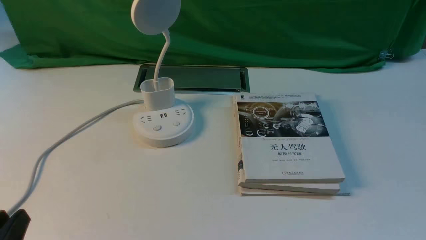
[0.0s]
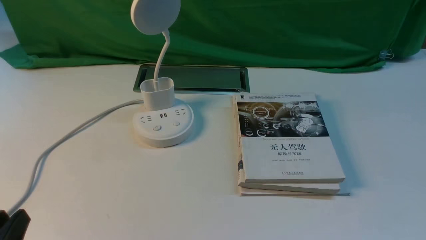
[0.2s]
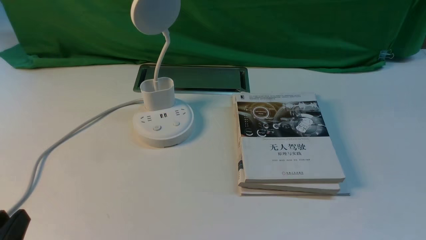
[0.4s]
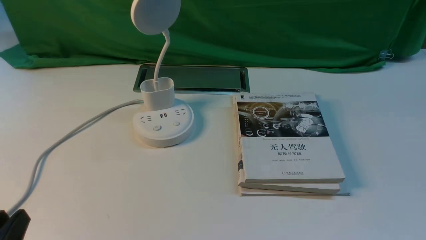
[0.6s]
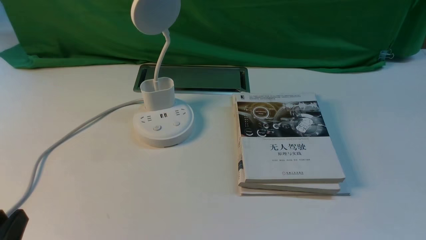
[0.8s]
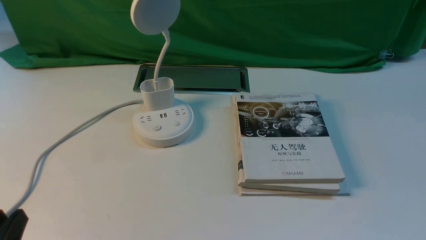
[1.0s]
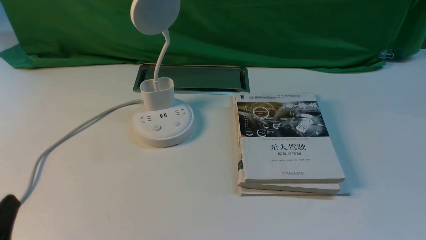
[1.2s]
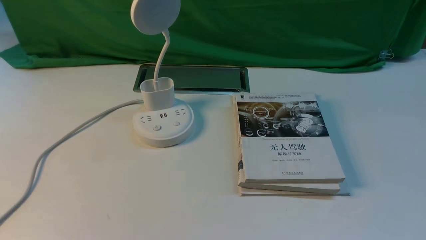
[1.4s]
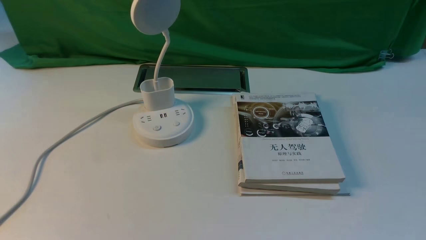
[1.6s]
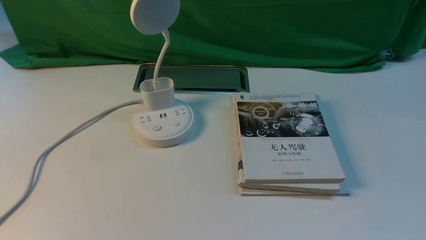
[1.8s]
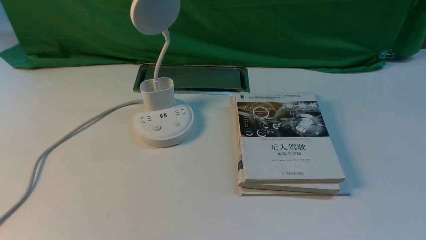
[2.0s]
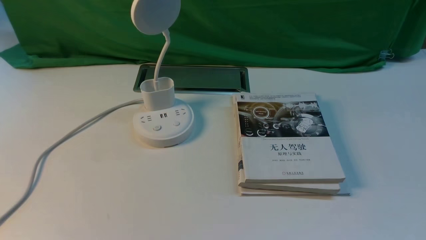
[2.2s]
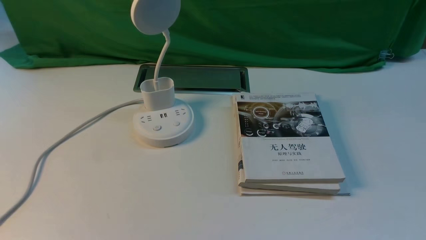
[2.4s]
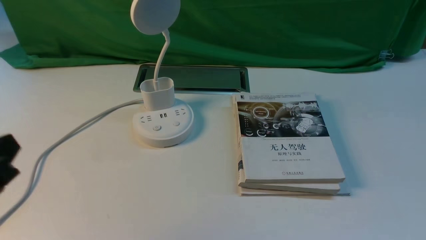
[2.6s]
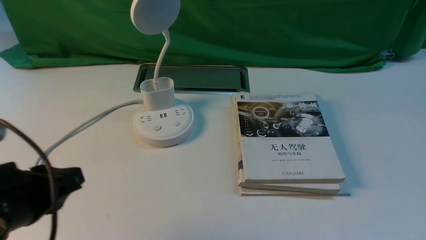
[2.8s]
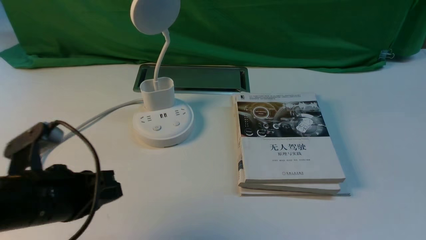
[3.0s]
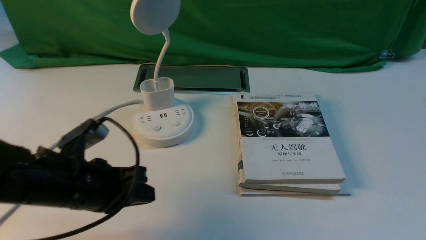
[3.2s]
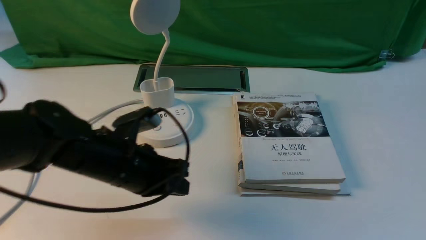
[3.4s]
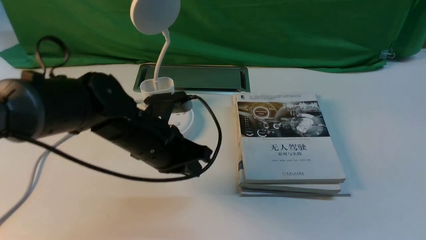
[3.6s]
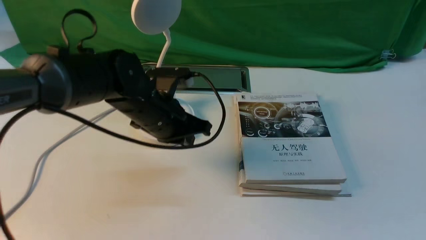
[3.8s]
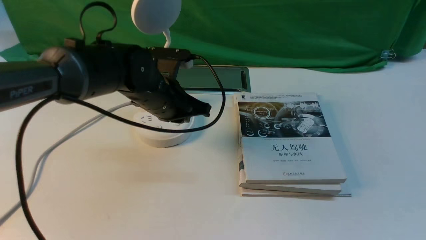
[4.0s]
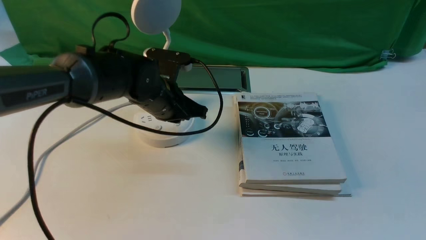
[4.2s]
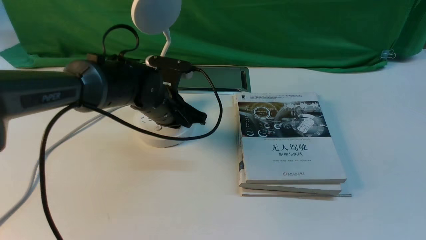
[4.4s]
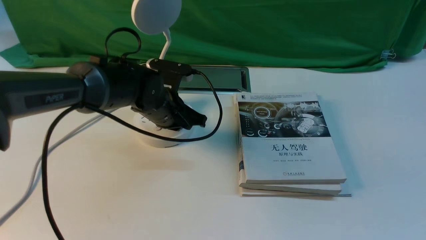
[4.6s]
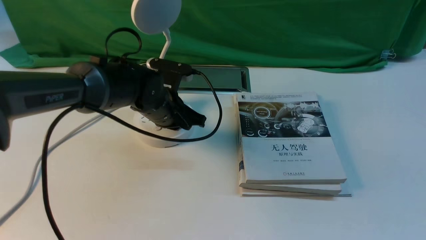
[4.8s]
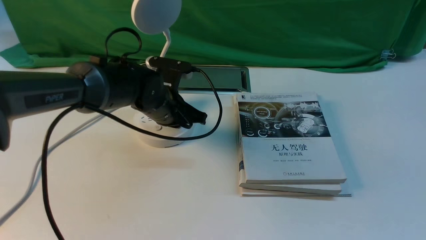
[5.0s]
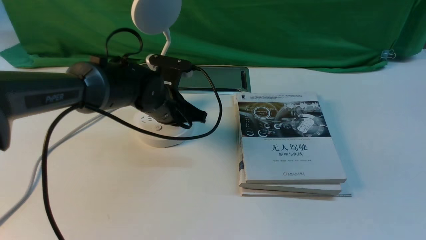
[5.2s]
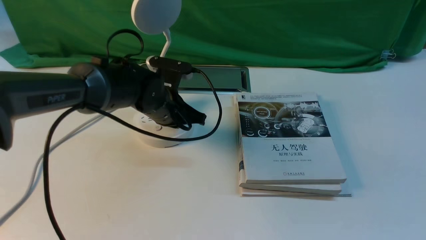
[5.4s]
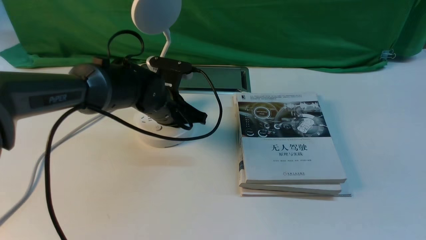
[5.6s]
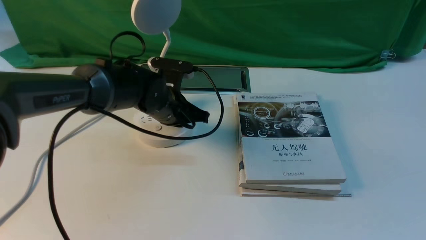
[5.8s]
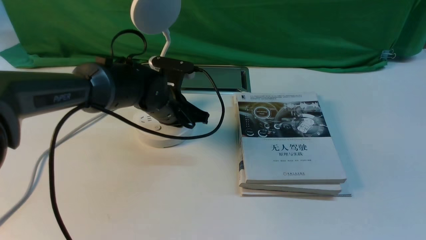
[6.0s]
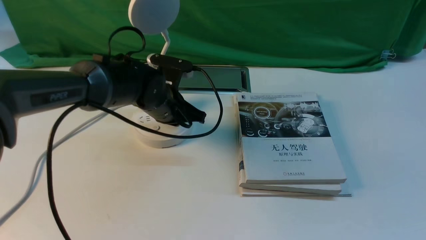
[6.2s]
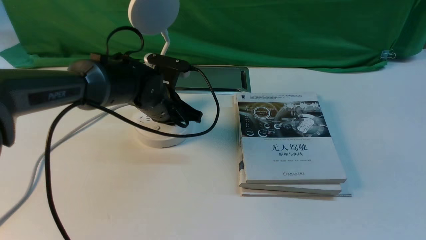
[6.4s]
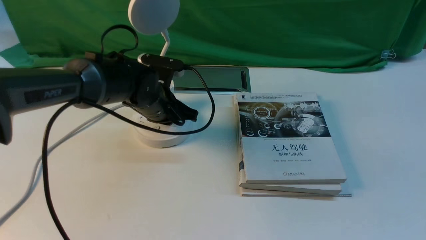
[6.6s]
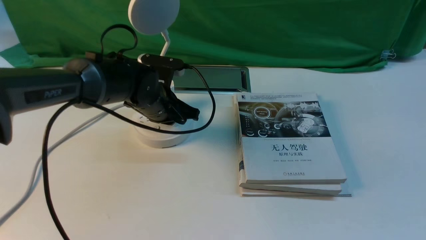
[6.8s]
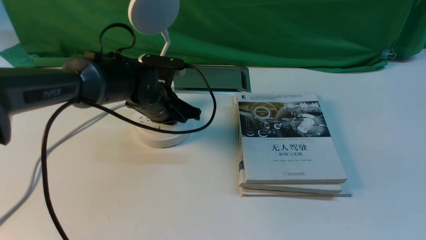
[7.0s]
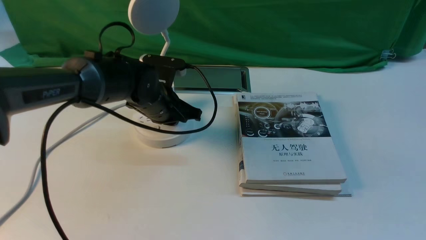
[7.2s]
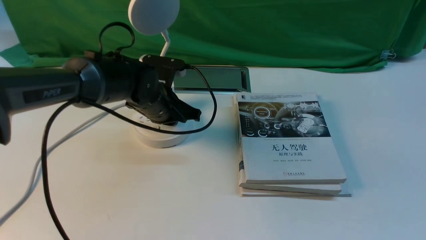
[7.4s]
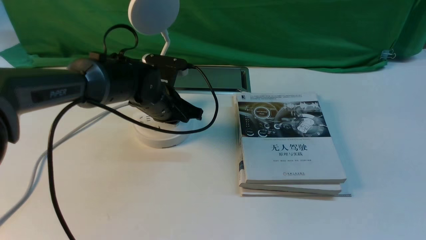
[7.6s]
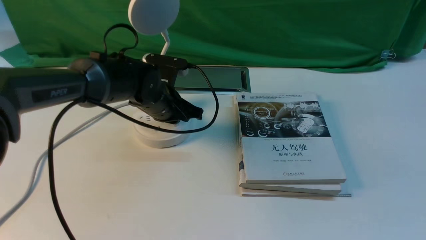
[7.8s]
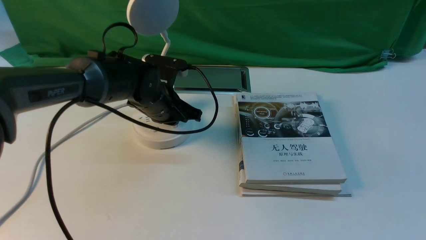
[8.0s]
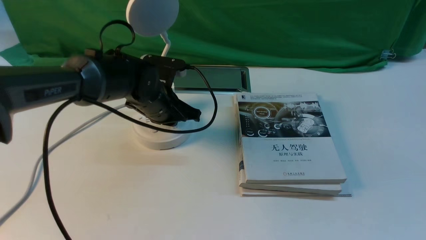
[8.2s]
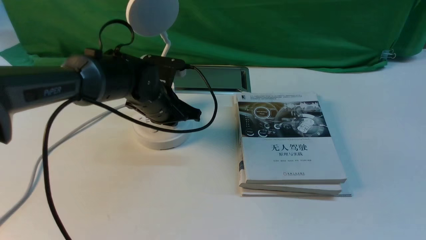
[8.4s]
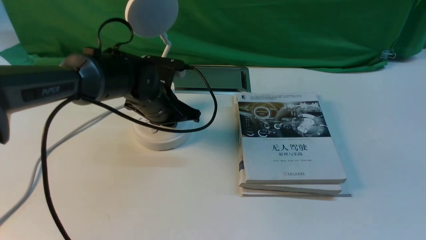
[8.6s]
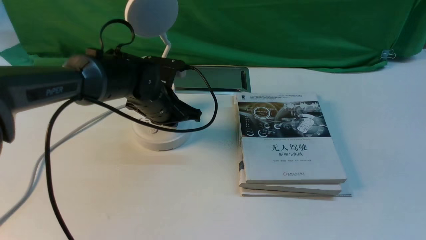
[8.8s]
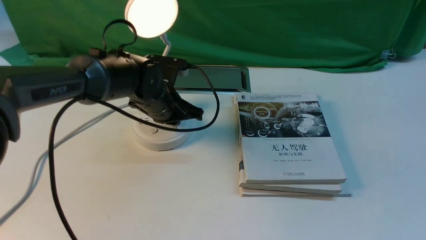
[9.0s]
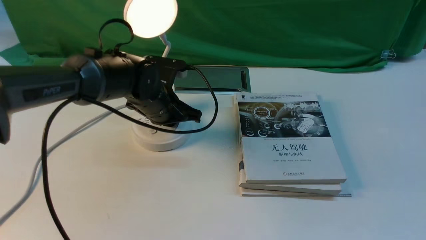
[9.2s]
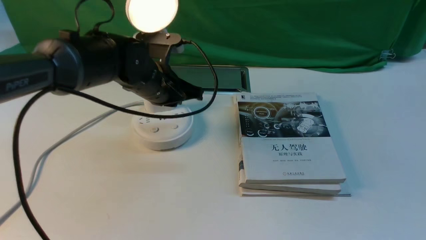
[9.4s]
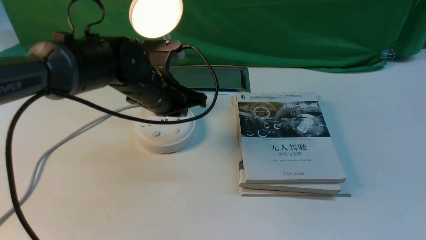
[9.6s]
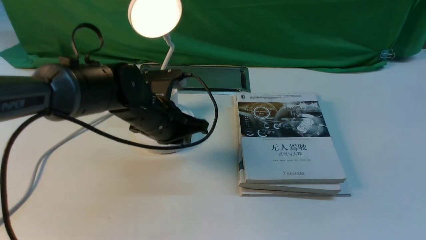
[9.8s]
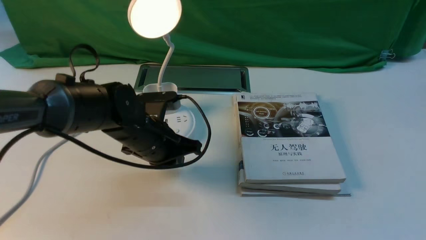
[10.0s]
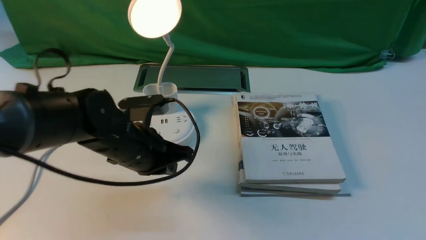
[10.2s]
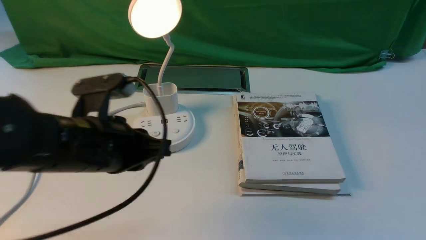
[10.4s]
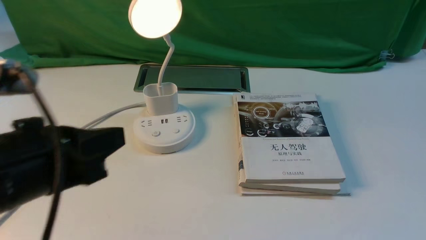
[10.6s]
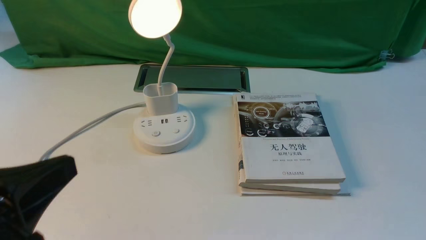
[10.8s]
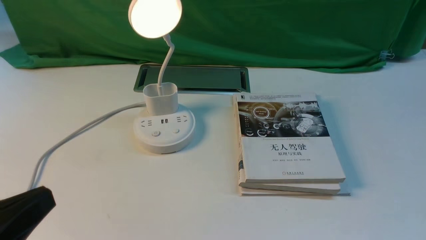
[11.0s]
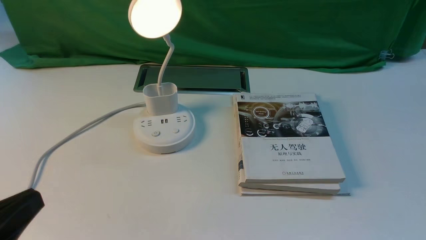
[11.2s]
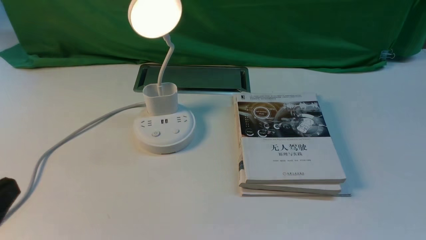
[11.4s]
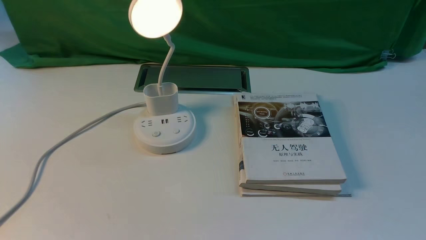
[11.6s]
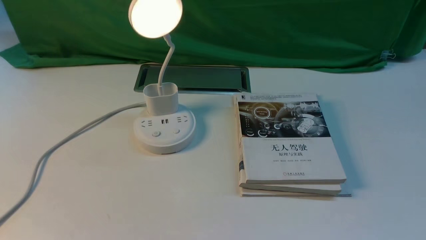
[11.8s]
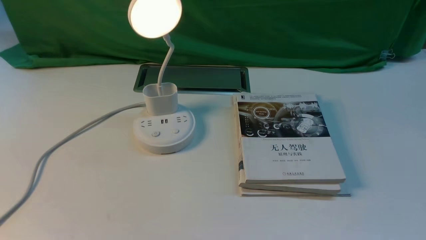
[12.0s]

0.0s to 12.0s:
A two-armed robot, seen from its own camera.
Step, 0.0s to 9.2s: use the left arm to press the button switch on the lamp holder.
0.0s to 1.6s: The left gripper shifts roughly 10 cm upward.
1.6s to 3.0s: The left gripper heads forward, covering approximately 15 cm, and closes up.
3.0s to 4.4s: The left gripper travels forward and to the right by about 25 cm.
4.4s to 6.0s: There are only small adjustments of the grippers.
6.0s to 7.6s: Both grippers stay about where they are.
7.6s to 9.0s: Both grippers stay about where they are.
9.0s to 10.4s: The left gripper goes some 20 cm backward and upward.
10.4s to 12.0s: The left gripper goes some 20 cm backward and to the left.

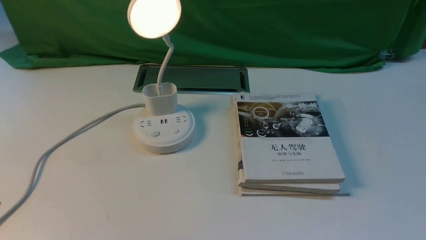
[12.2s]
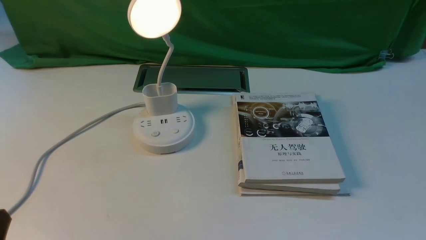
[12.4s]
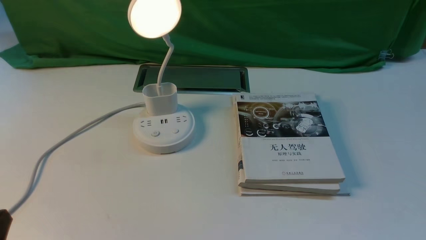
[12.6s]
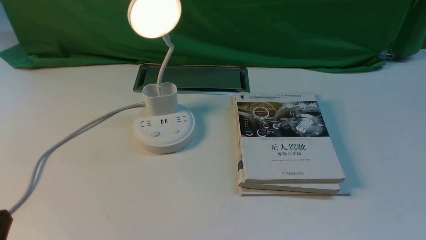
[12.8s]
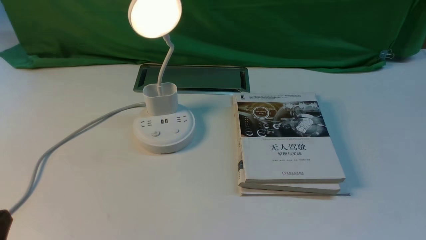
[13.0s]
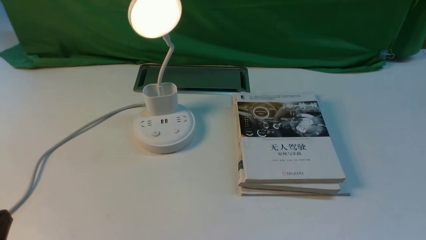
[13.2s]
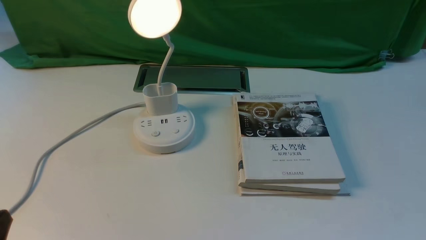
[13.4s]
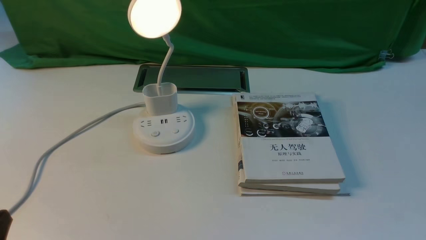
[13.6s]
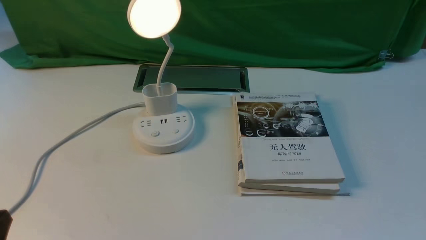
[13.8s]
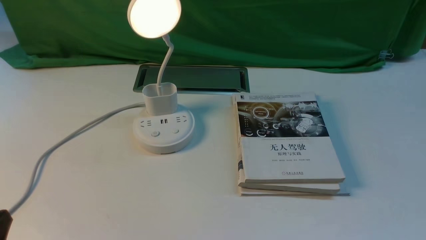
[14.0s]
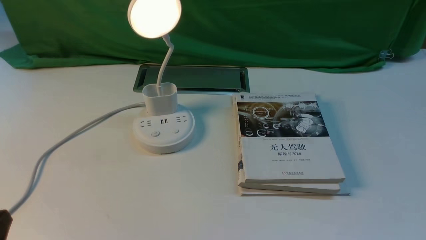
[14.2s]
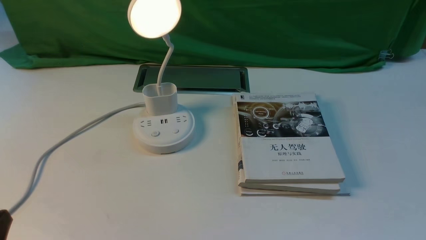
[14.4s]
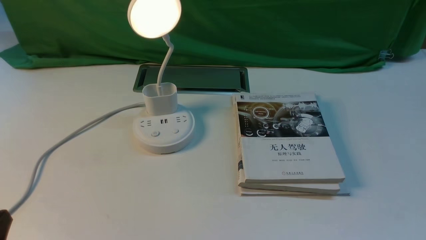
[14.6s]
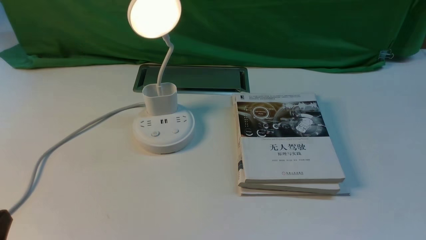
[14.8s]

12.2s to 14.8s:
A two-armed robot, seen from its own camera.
13.4s to 14.8s: Neither gripper changes place.

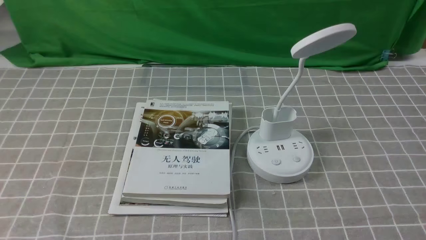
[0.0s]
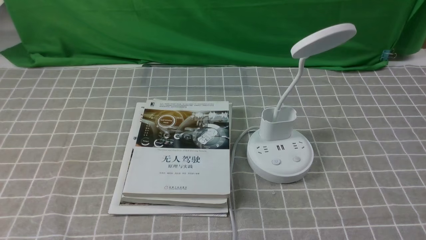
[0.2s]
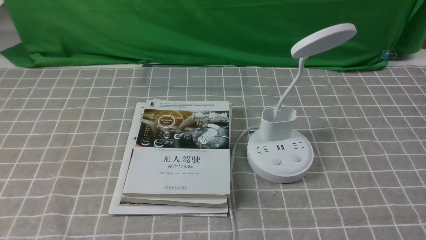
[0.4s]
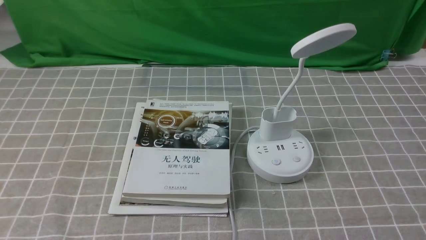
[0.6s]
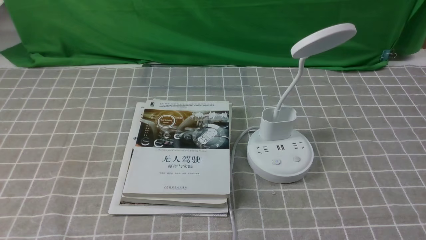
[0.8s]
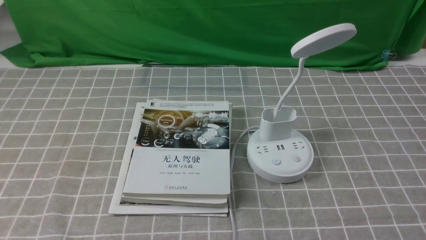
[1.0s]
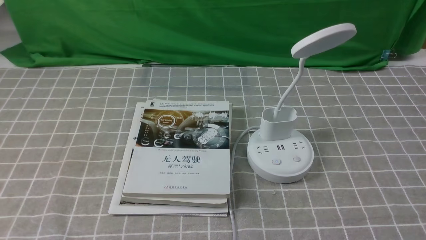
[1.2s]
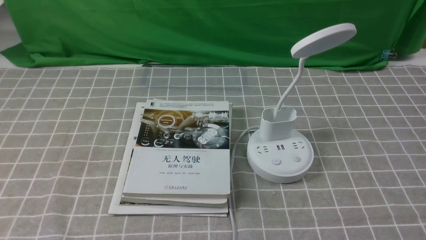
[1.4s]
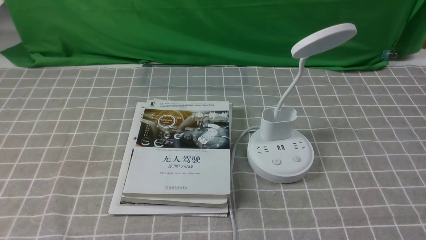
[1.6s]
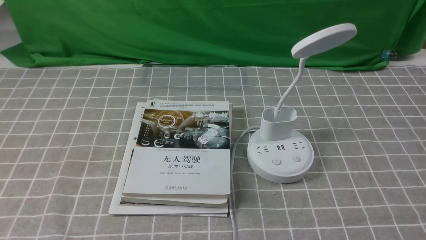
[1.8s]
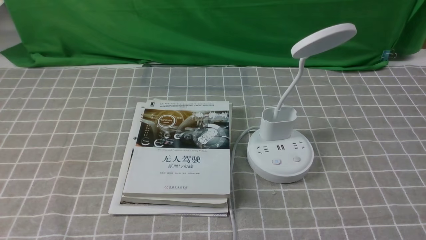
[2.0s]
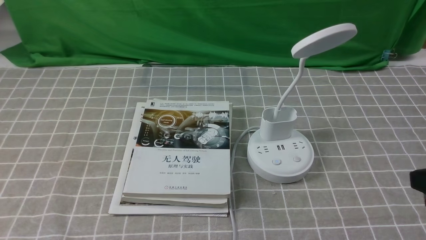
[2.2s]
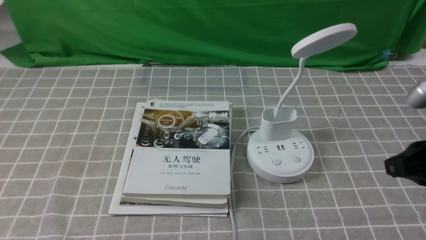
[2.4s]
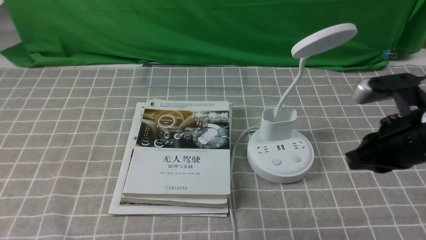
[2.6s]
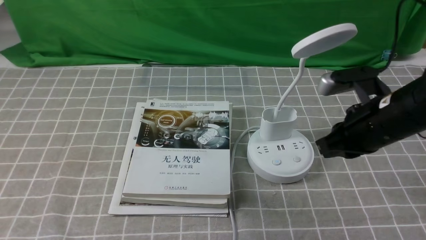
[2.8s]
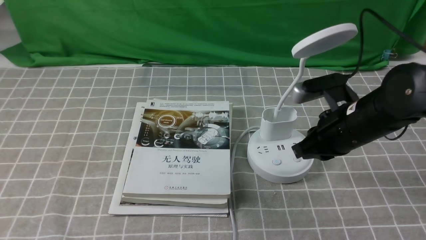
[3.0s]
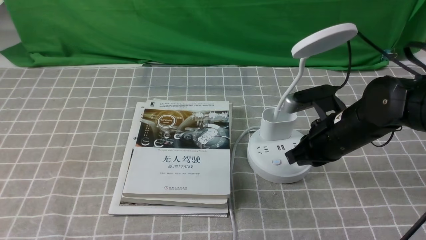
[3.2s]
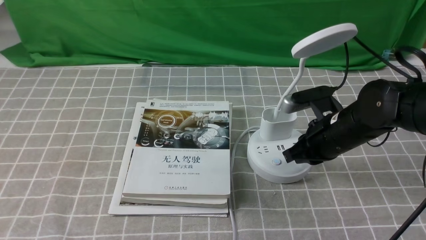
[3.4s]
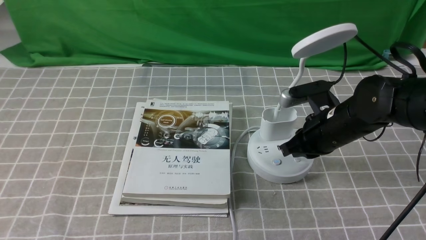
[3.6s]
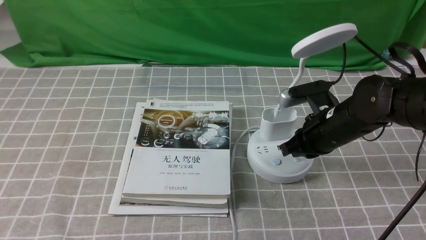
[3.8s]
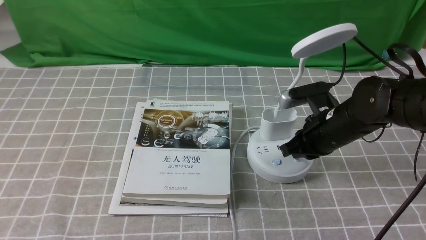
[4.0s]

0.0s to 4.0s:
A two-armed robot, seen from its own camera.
1.4s to 2.6s: The right gripper shifts about 20 cm forward, and closes.
2.6s to 4.0s: The right gripper heads downward, forward and to the left, covering roughly 15 cm.
